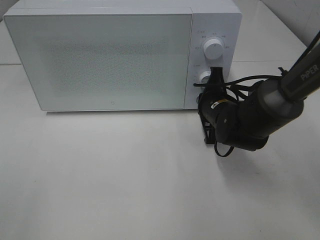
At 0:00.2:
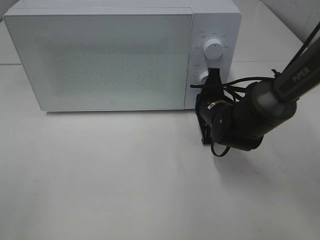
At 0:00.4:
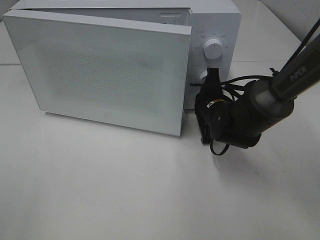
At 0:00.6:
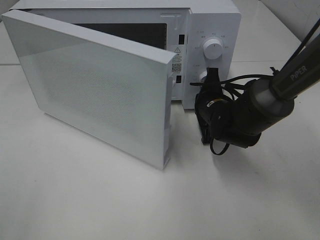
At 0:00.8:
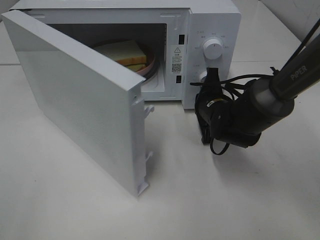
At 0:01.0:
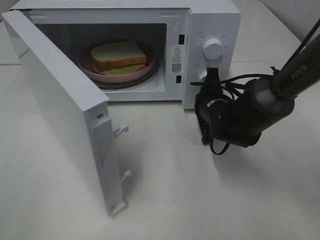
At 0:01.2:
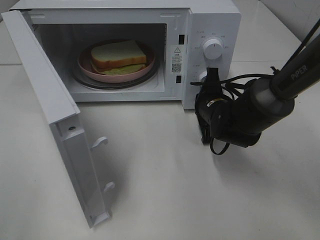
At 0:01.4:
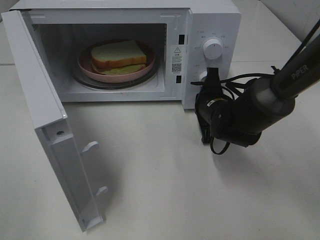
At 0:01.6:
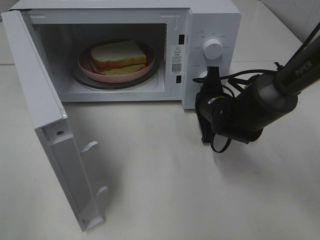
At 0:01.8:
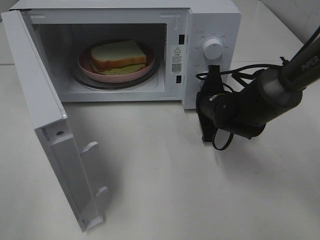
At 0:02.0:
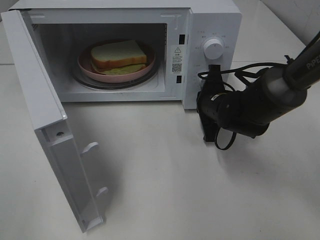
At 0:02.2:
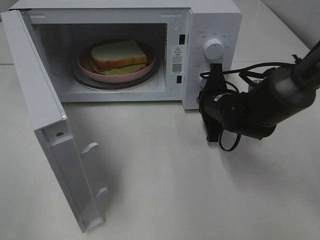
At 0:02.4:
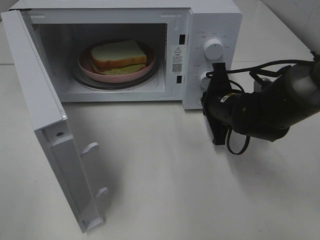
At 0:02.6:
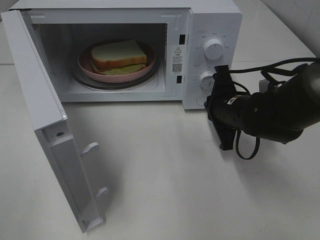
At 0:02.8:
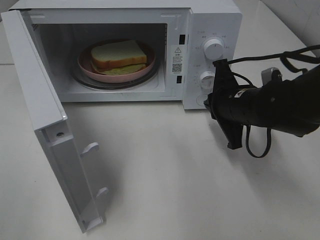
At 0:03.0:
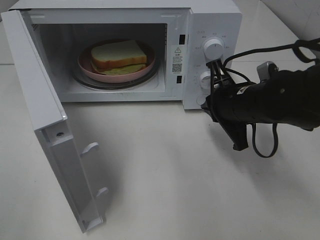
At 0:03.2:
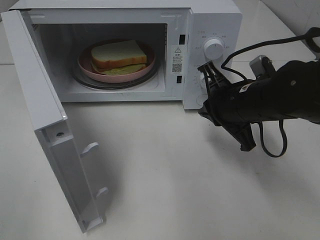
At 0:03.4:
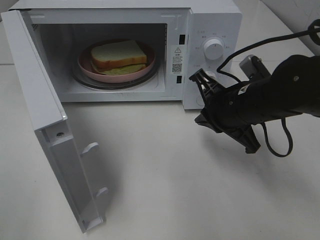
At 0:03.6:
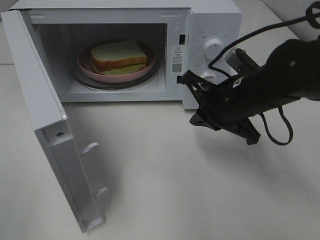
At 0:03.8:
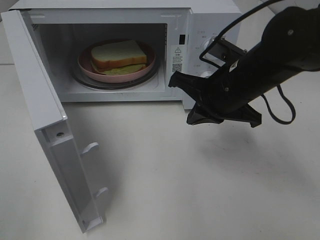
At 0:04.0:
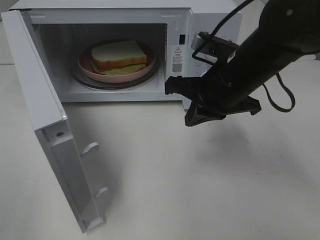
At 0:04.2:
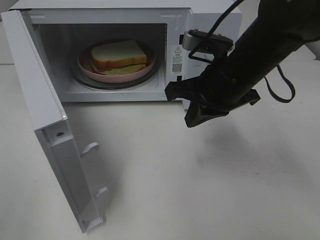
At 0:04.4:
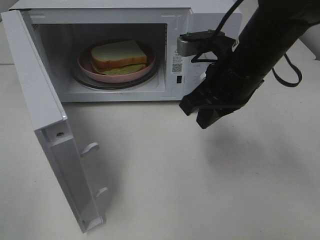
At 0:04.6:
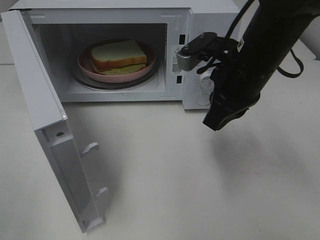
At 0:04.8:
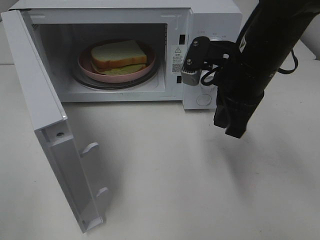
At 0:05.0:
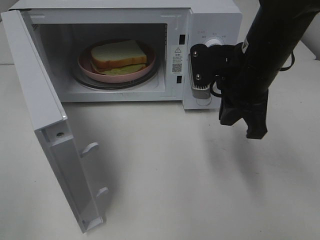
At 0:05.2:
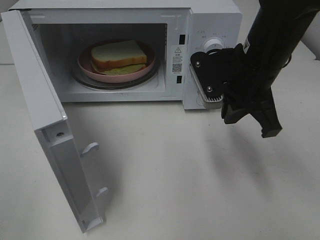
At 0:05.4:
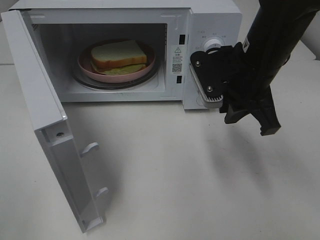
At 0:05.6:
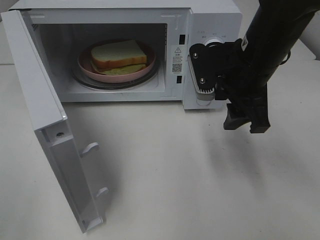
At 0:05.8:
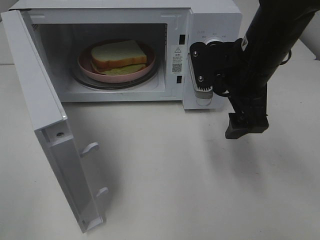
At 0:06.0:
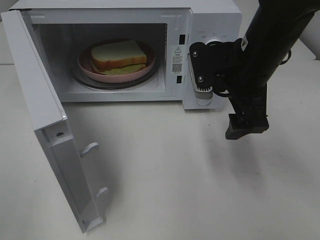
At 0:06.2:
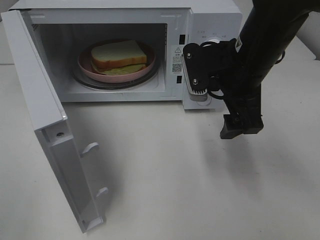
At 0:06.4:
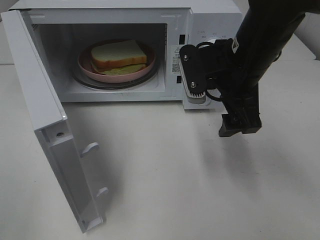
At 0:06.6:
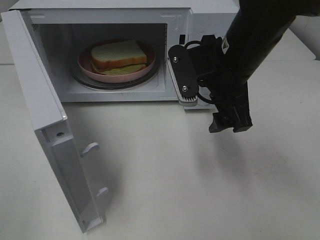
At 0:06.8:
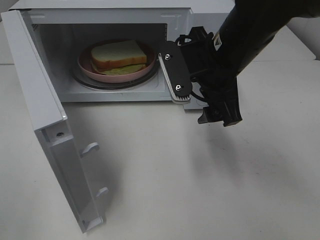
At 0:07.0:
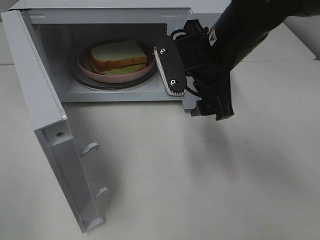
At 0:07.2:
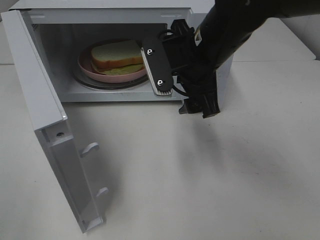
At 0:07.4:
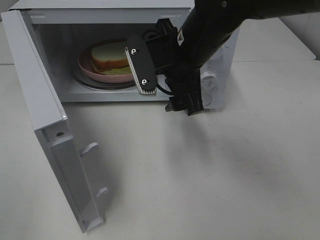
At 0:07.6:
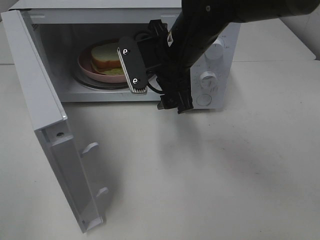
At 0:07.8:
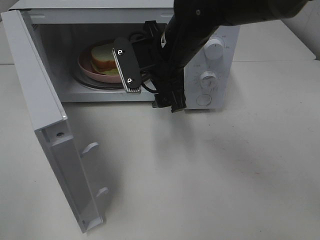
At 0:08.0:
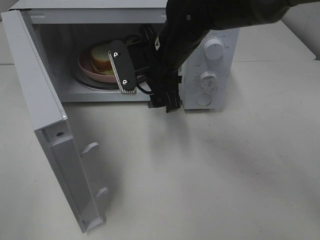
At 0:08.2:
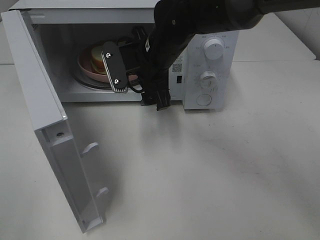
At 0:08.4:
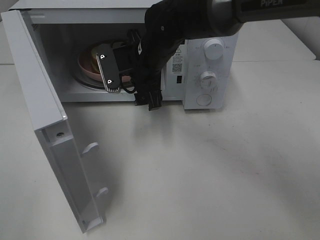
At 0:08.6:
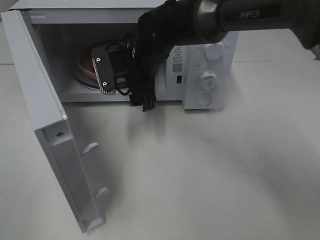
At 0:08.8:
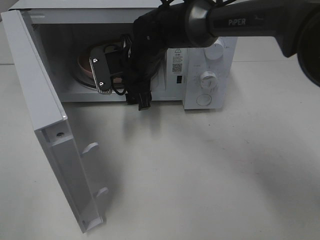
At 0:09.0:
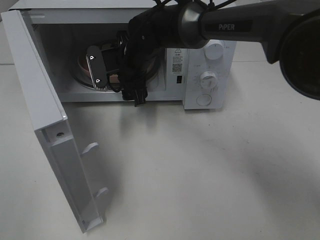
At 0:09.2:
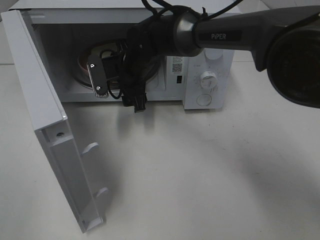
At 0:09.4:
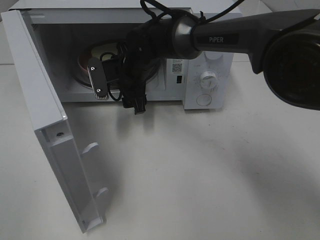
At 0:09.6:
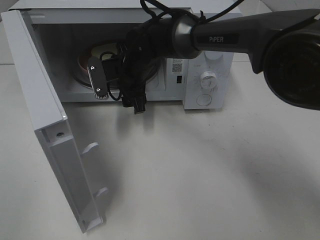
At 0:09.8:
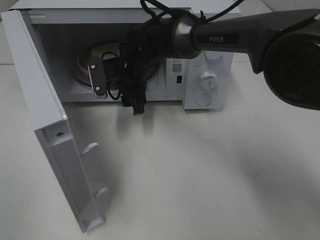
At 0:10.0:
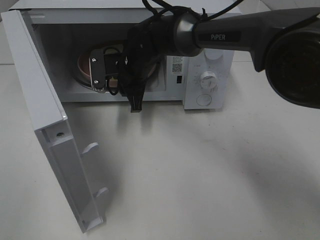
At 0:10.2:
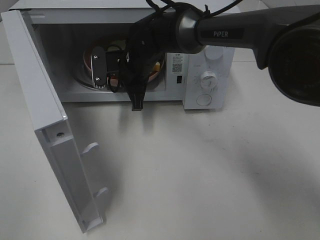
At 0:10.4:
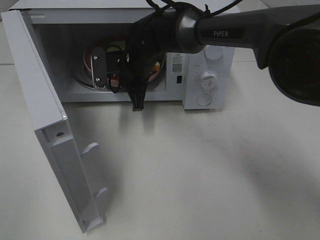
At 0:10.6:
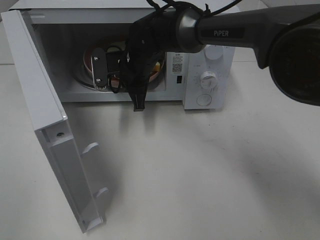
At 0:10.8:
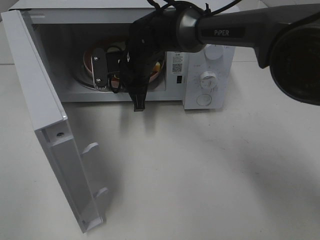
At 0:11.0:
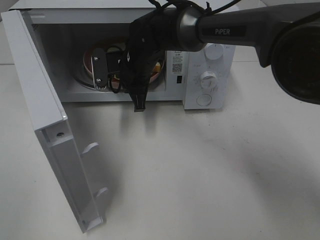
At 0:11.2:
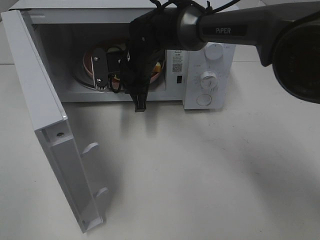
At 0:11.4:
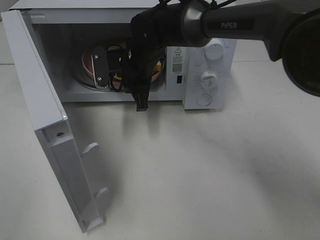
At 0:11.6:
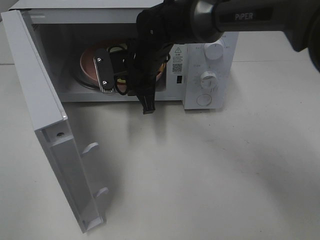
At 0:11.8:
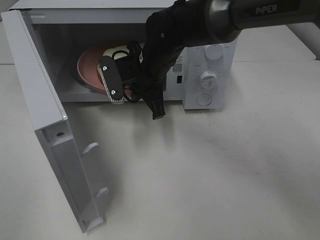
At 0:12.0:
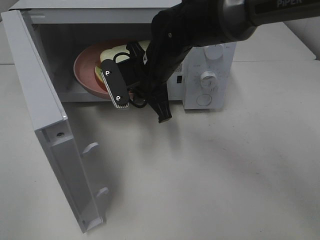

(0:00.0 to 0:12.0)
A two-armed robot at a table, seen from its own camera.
Task of the whole recording: Heat Sandwich.
Step, 0:00.0 - 0:02.6: Right hand: press the switch.
Step, 0:02.8 - 0:10.6: Right hand: grab the plate with the sandwich.
0:01.6 - 0:03.0: The right gripper goes about 10 cm upward and backward.
0:03.0 - 0:04.4: The right gripper heads upward, covering about 10 cm.
0:04.4 - 0:06.0: The right gripper opens its fingers.
0:06.0 - 0:07.6: The right gripper heads to the left, covering approximately 10 cm.
0:07.6 - 0:09.0: The right gripper is displaced forward, to the left and downward by some 15 cm.
0:09.0 - 0:10.4: The right gripper closes its fingers.
0:10.4 - 0:12.0: The right gripper is displaced backward by approximately 5 cm.

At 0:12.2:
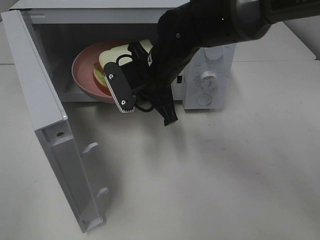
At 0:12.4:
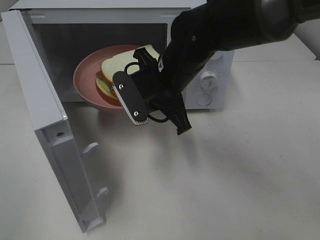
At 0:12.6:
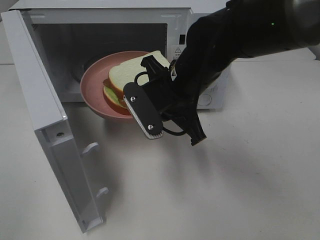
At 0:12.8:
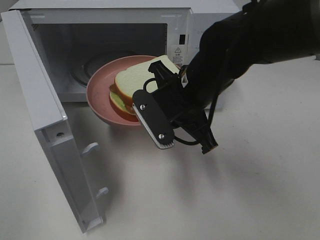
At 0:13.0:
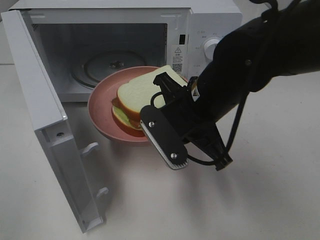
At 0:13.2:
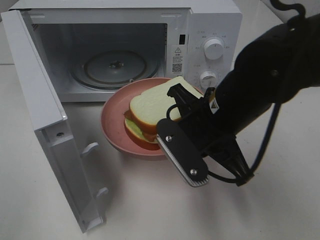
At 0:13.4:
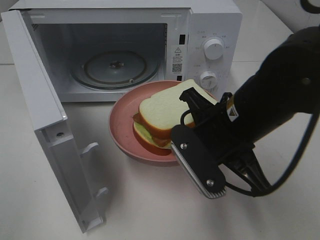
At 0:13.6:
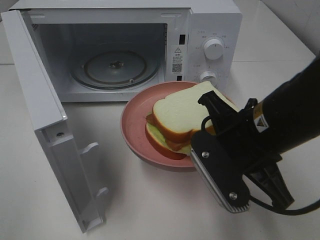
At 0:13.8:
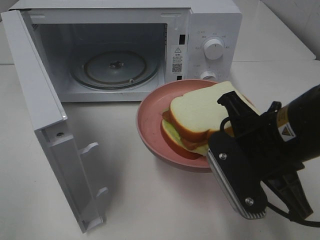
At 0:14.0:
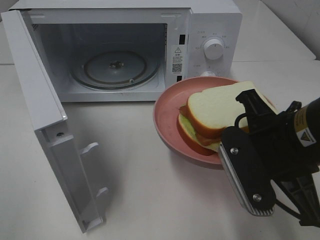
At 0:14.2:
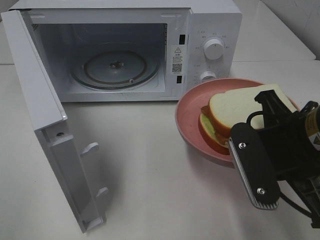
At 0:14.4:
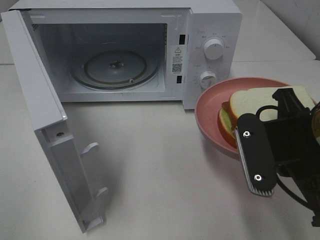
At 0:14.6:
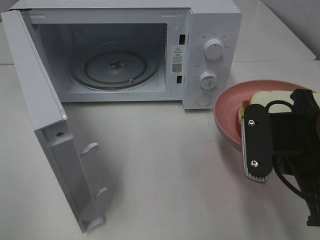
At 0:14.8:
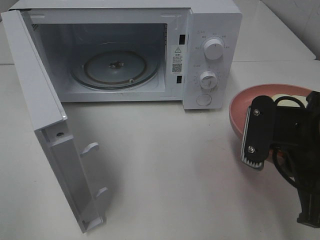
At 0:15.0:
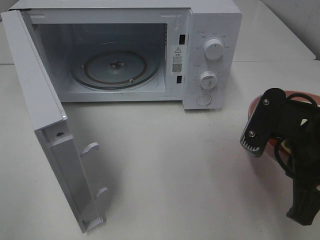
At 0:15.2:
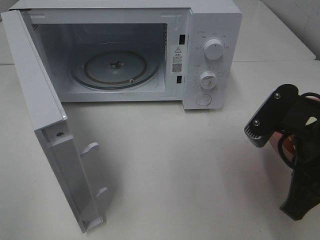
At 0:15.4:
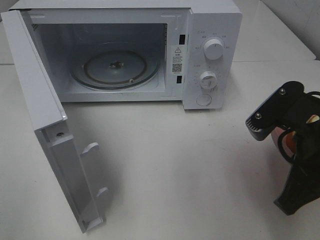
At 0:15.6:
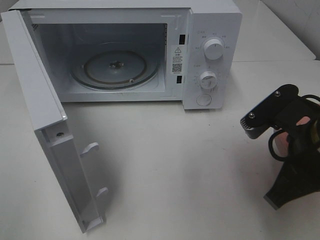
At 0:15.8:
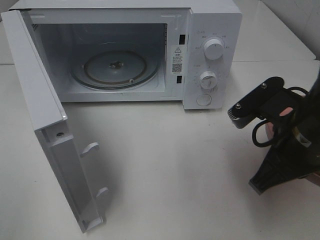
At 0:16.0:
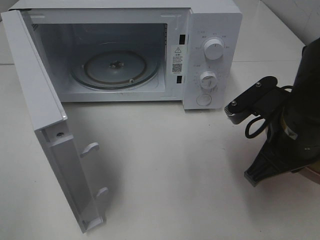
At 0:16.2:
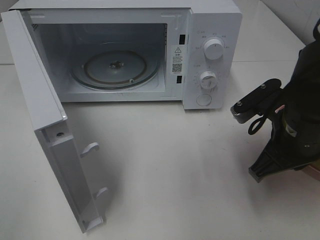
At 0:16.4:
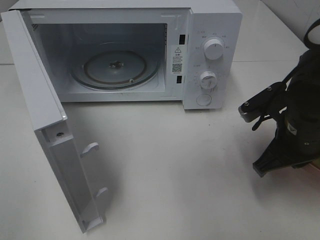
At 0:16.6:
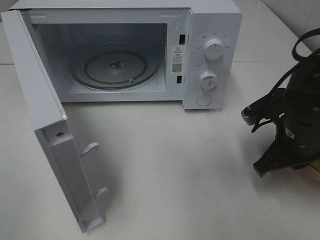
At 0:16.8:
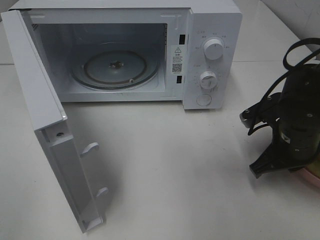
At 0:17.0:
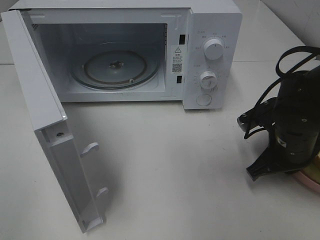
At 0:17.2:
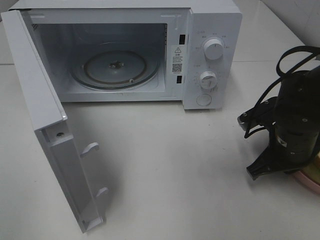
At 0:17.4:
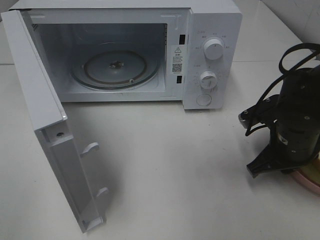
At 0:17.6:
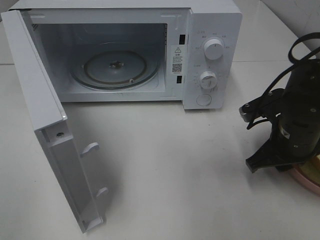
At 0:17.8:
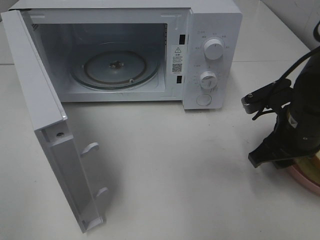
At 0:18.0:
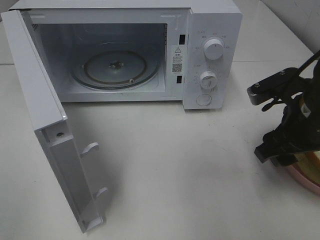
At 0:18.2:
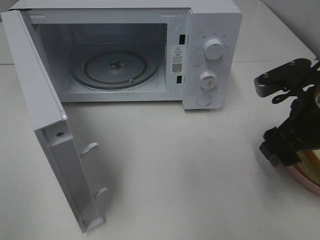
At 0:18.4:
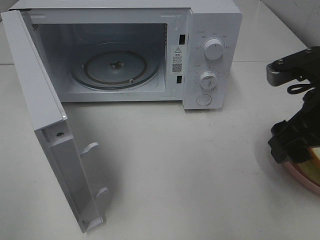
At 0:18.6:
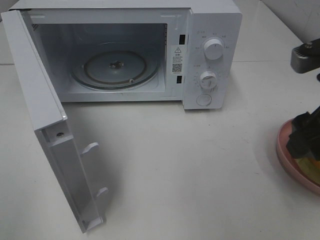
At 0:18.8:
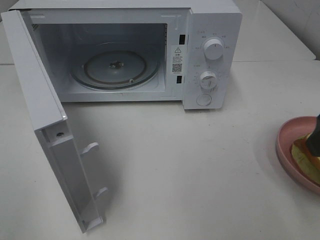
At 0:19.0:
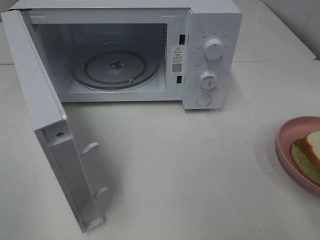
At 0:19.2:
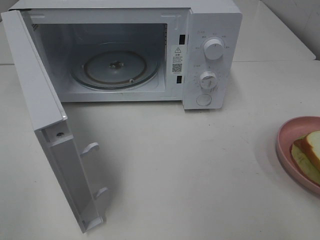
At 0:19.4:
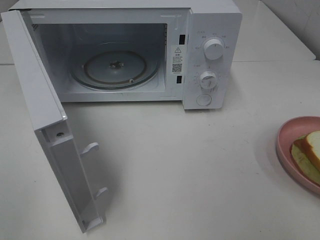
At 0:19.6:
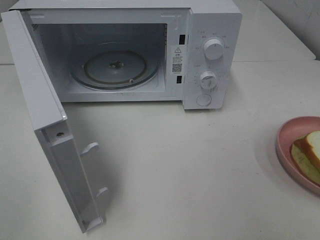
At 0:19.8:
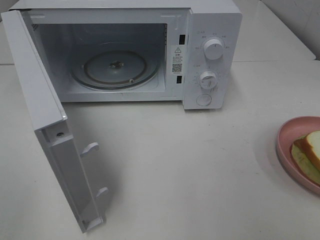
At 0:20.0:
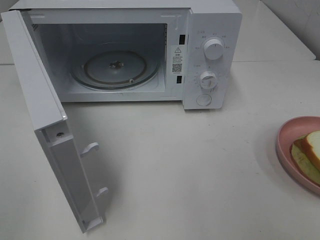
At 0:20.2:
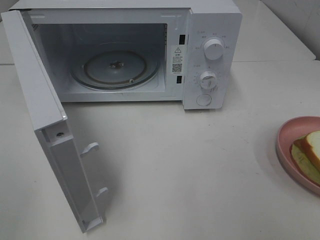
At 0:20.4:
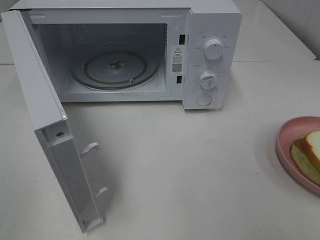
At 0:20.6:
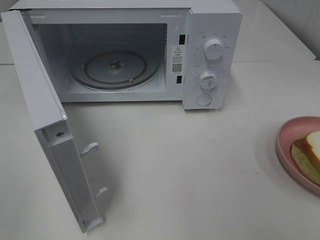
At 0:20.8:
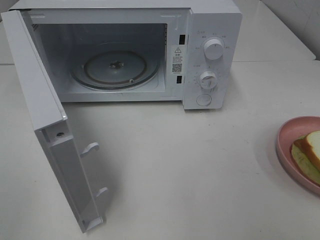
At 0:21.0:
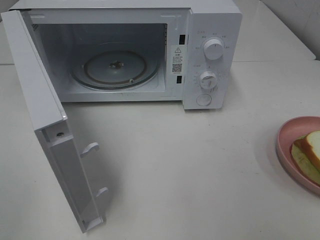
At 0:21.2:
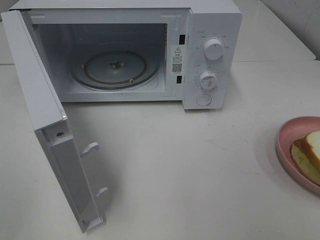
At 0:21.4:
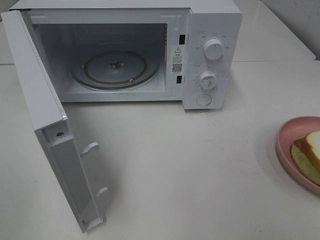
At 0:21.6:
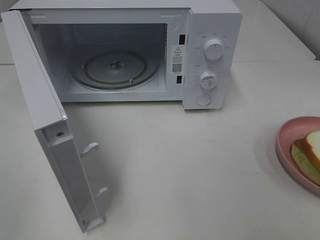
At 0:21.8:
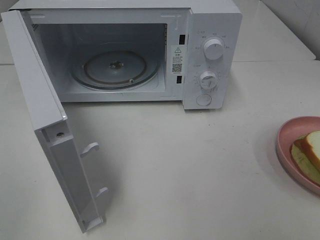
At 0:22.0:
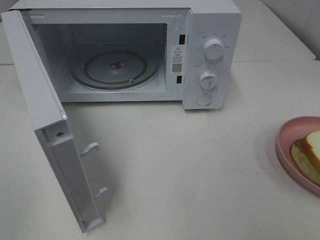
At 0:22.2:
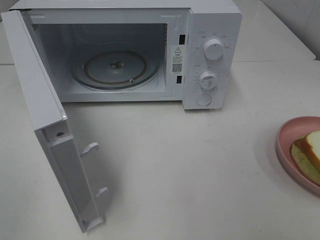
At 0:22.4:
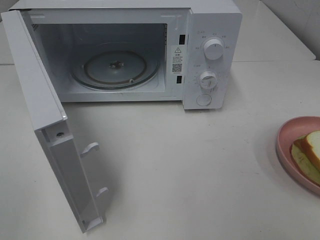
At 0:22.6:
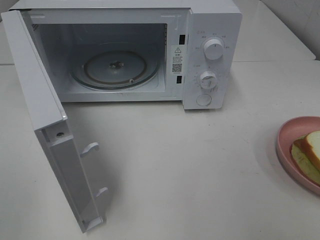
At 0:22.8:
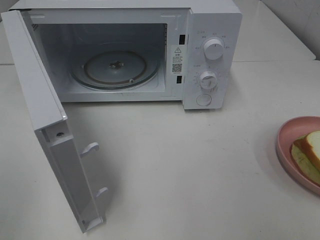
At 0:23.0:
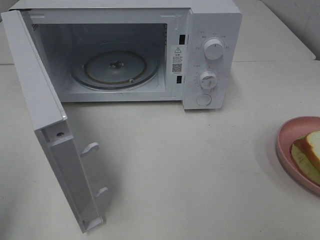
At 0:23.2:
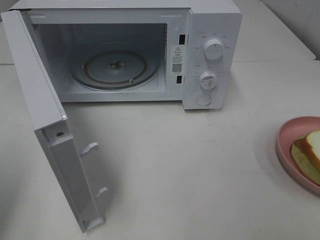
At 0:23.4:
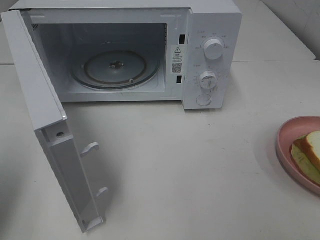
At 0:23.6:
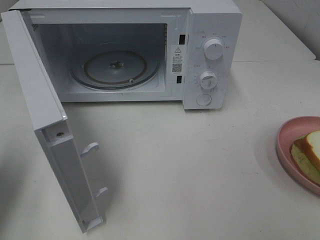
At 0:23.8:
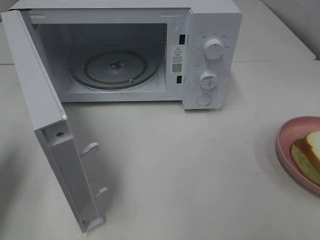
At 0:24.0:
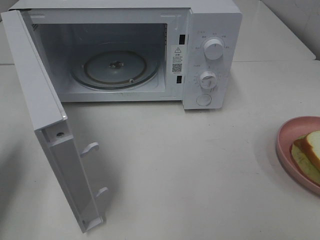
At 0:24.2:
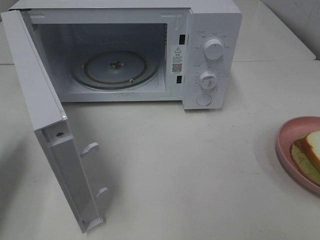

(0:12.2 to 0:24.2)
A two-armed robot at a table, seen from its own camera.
Task of the whole recording: Heat Sandwich.
Step, 0:12.2 - 0:18.6: Right hand: place the plate on the table.
0:12.2 - 0:13.8: The right gripper travels backward and to the right by roughly 20 cm.
0:15.2 - 0:16.6: The right gripper shifts some 10 cm forward and downward.
0:16.6 - 0:18.2: The right gripper is displaced upward by approximately 10 cm, and opens up.
0:18.2 - 0:19.8: The right gripper goes about 20 cm backward, upward and to the right.
0:22.6 - 0:24.2: The left gripper heads forward and downward, covering some 25 cm, and closes up.
